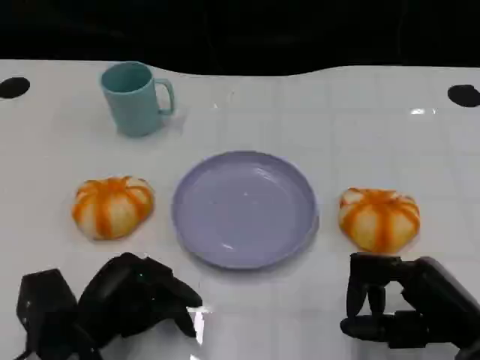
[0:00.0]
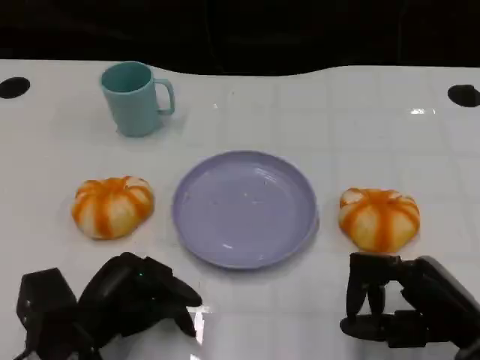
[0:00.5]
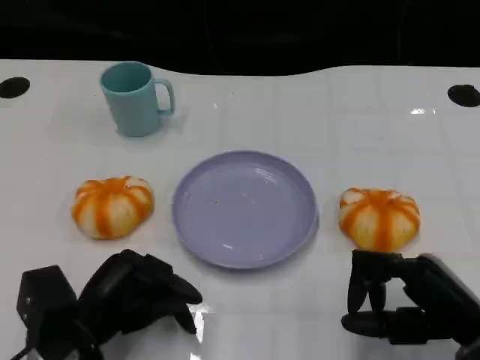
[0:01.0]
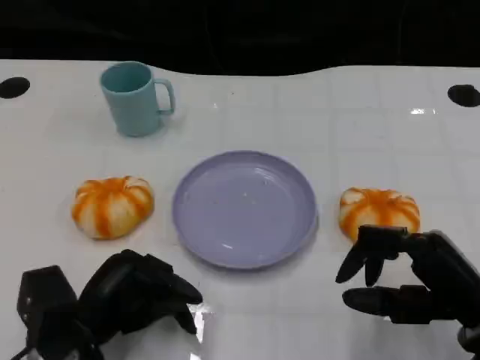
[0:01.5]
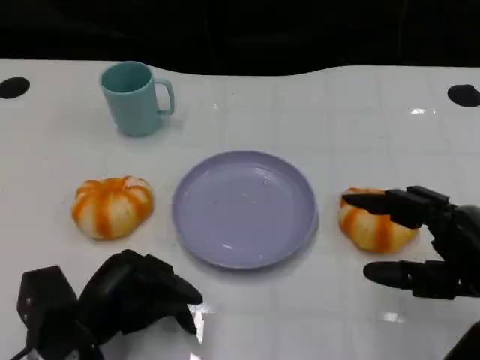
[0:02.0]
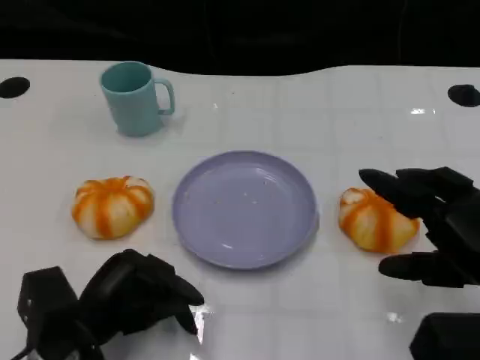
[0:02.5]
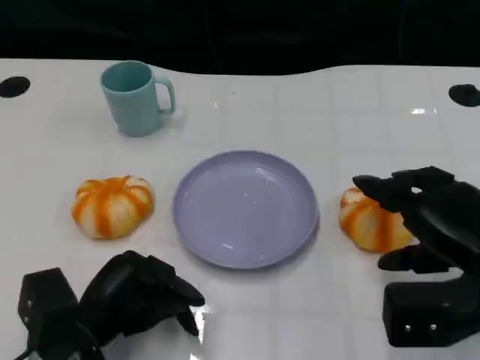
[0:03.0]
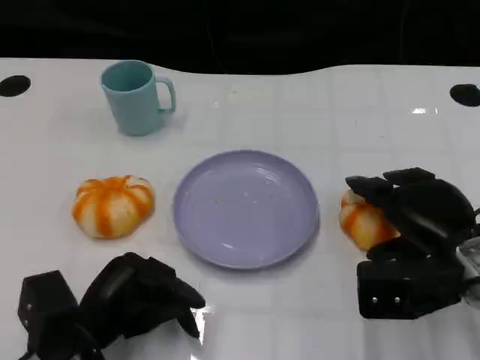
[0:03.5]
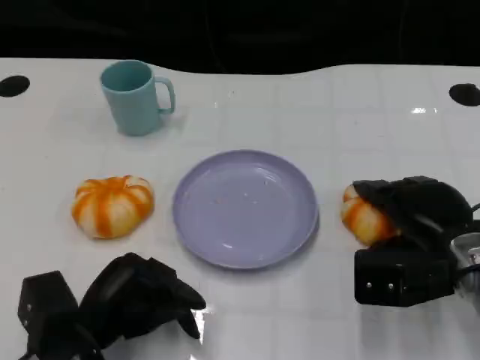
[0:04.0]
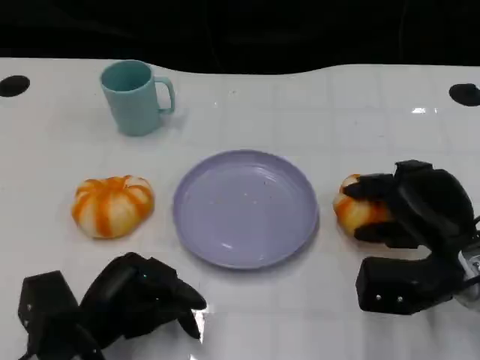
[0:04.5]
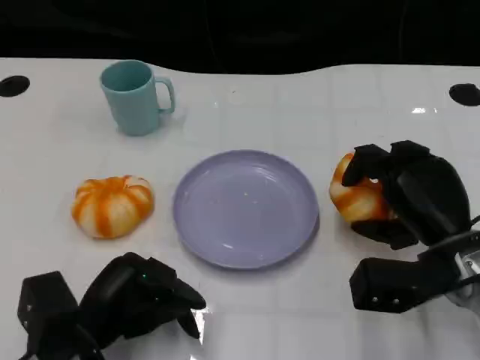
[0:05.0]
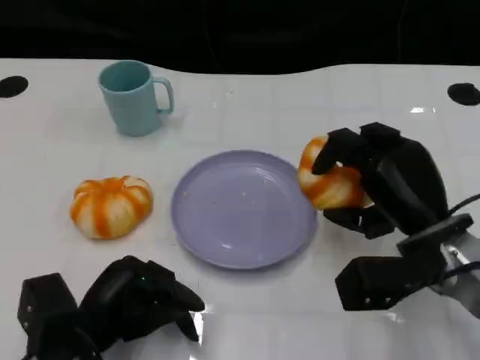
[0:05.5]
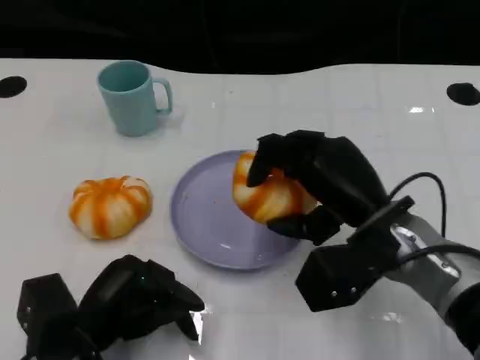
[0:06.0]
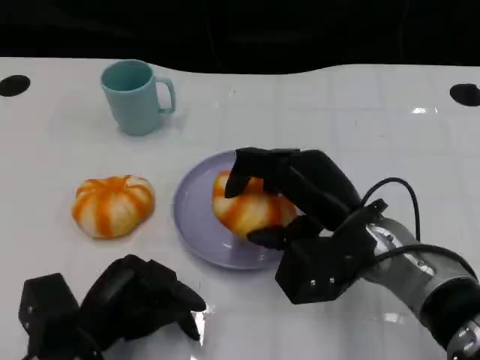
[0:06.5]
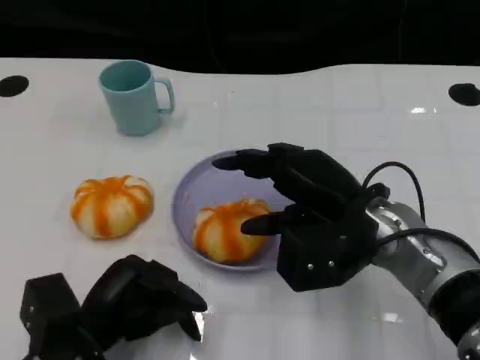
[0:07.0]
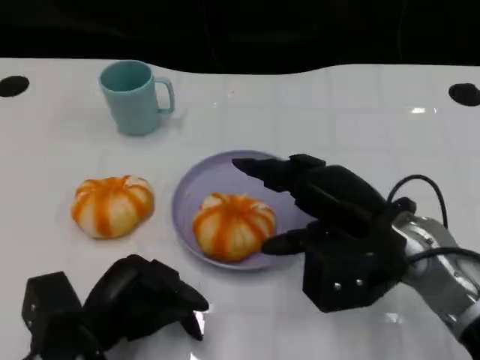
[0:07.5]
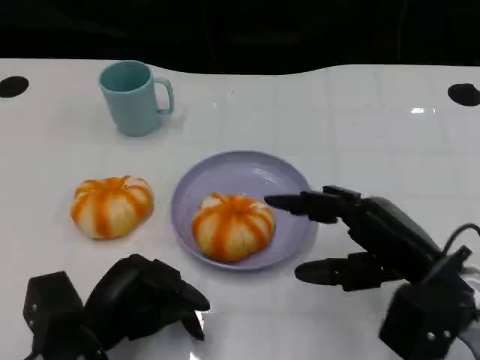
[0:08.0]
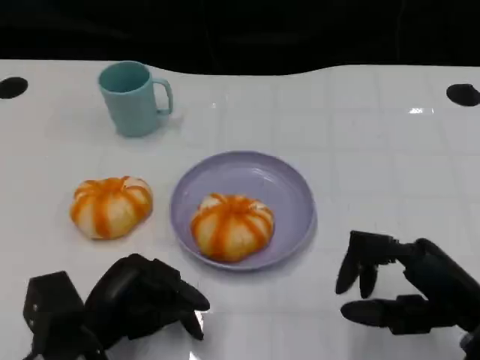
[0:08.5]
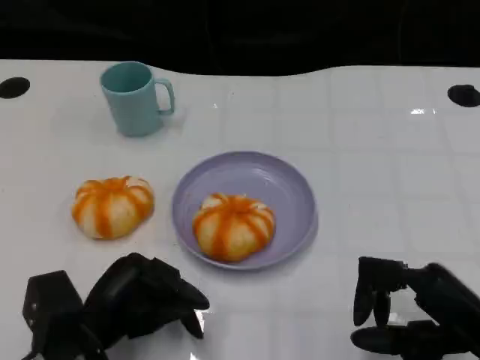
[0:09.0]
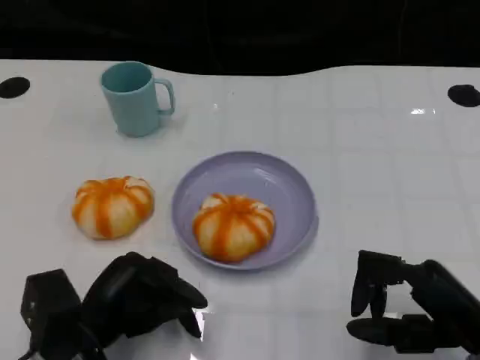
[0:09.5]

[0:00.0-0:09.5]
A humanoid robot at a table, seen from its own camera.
Task of the whole recording: Grasp the bread from the table and place it into the plate.
0:00.0 to 0:02.0: The right hand is displaced upward by some 5 cm.
0:02.0 to 0:04.0: The right hand travels forward by about 10 cm.
0:07.5 to 0:09.5: The right hand travels backward, to the right and downward by approximately 15 cm.
